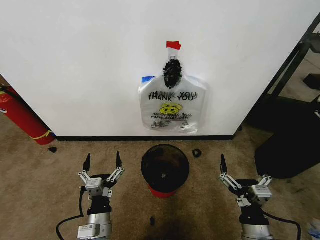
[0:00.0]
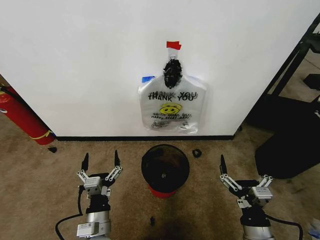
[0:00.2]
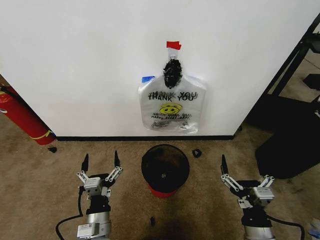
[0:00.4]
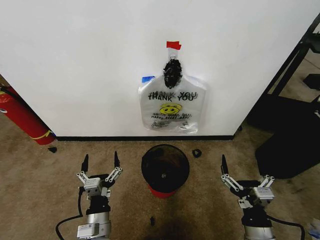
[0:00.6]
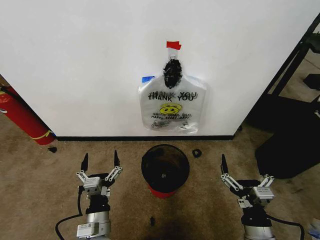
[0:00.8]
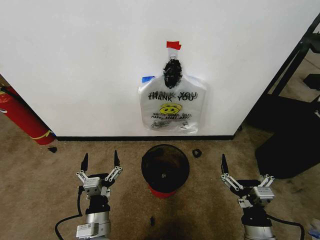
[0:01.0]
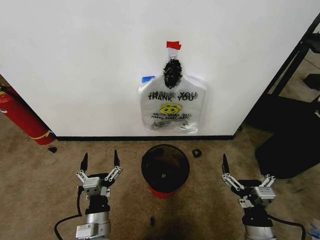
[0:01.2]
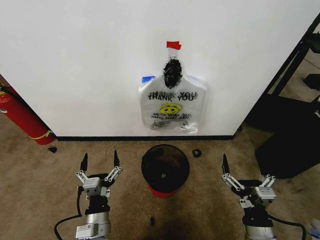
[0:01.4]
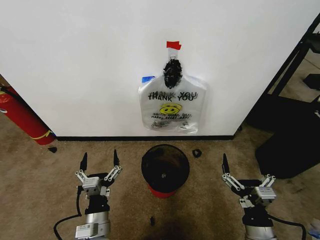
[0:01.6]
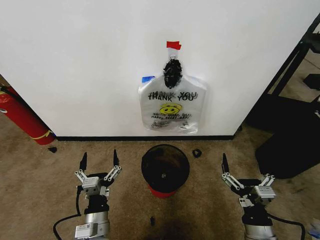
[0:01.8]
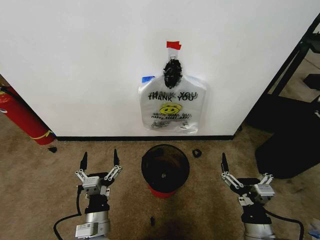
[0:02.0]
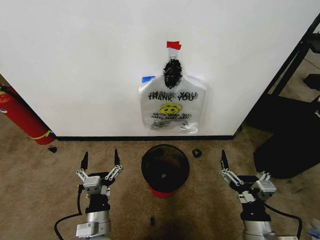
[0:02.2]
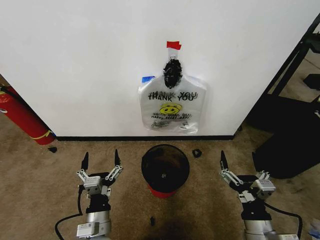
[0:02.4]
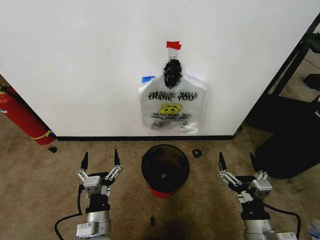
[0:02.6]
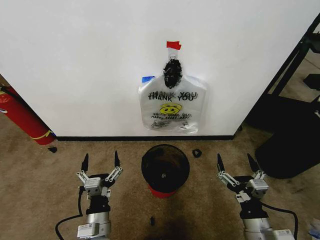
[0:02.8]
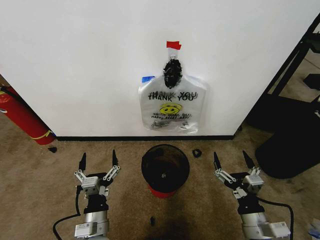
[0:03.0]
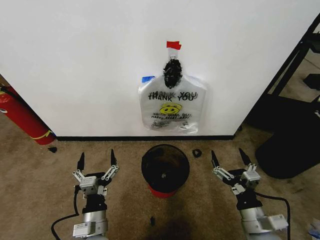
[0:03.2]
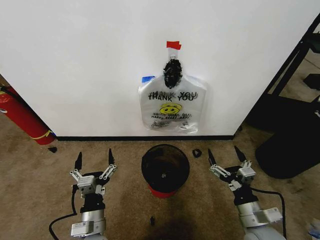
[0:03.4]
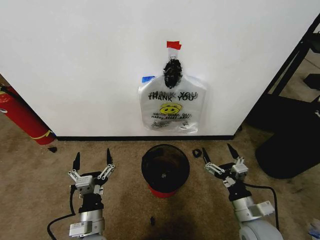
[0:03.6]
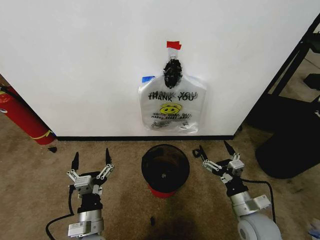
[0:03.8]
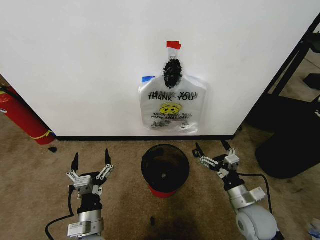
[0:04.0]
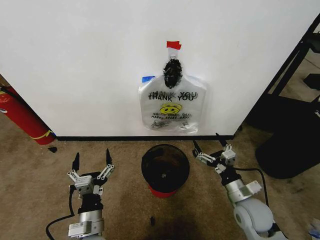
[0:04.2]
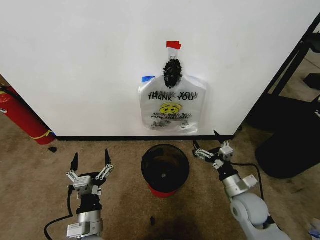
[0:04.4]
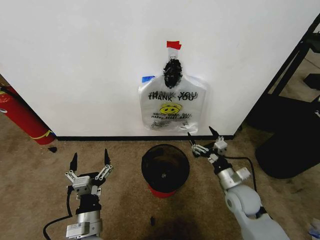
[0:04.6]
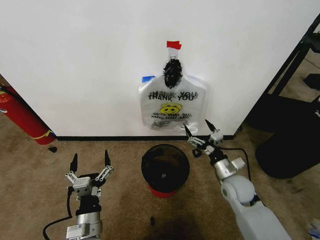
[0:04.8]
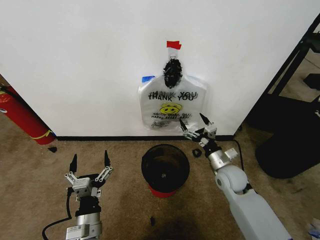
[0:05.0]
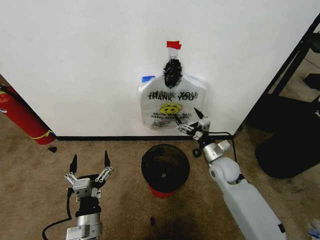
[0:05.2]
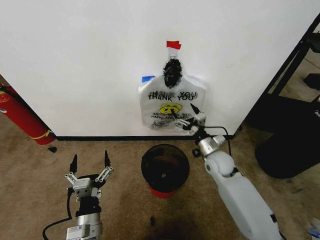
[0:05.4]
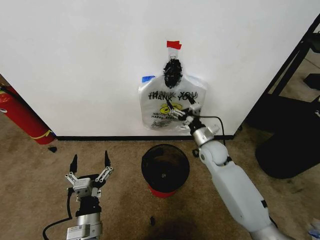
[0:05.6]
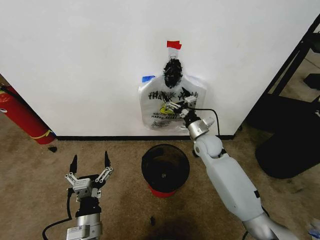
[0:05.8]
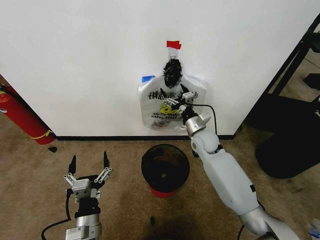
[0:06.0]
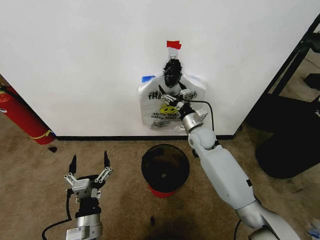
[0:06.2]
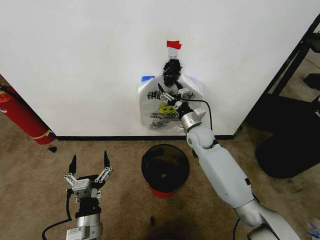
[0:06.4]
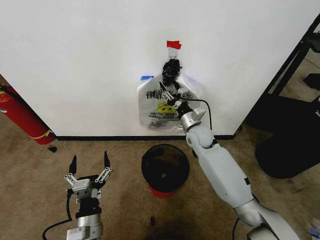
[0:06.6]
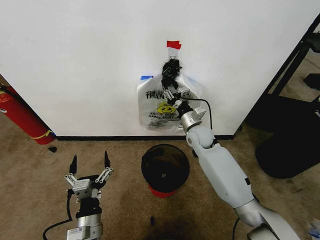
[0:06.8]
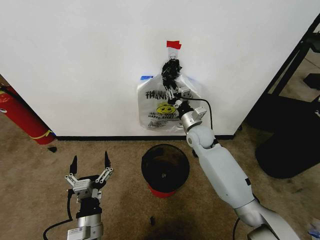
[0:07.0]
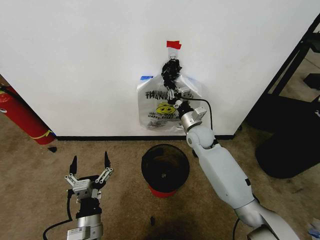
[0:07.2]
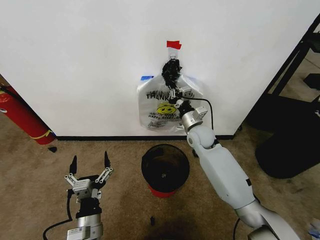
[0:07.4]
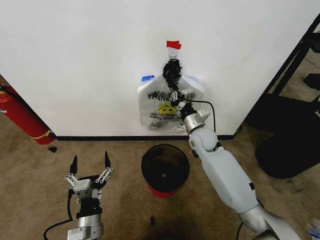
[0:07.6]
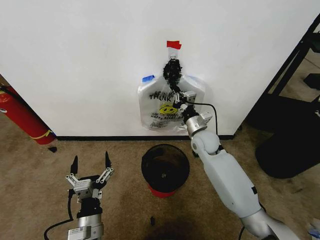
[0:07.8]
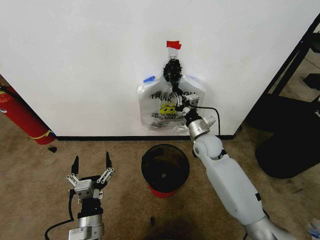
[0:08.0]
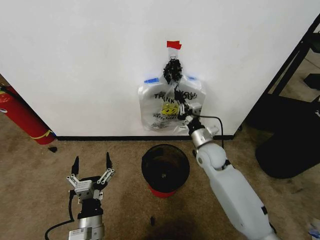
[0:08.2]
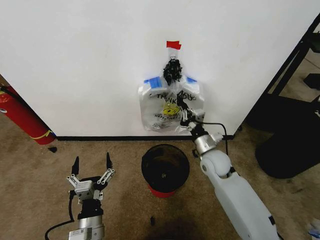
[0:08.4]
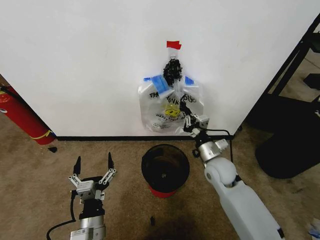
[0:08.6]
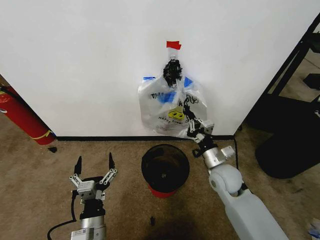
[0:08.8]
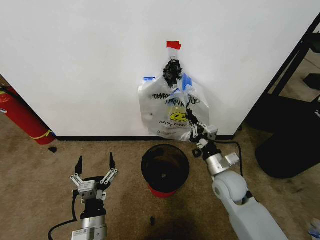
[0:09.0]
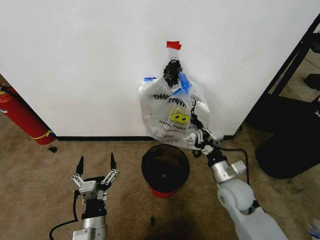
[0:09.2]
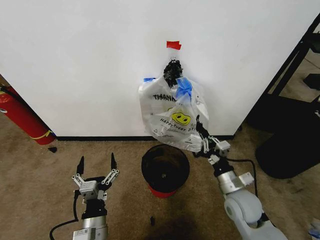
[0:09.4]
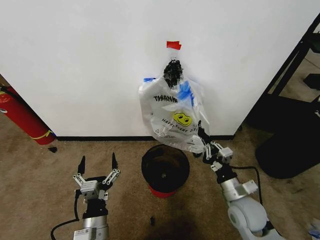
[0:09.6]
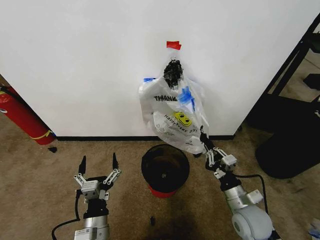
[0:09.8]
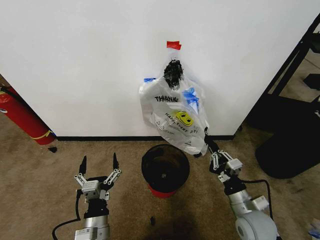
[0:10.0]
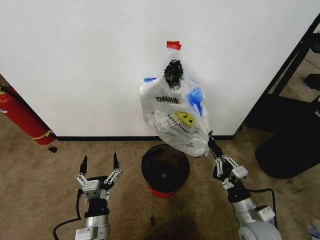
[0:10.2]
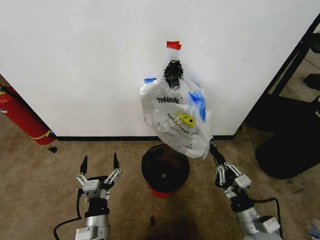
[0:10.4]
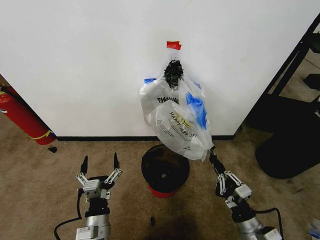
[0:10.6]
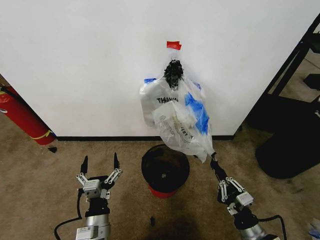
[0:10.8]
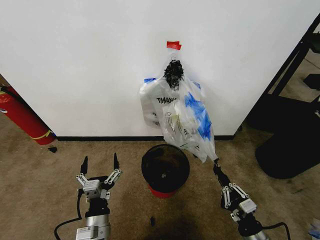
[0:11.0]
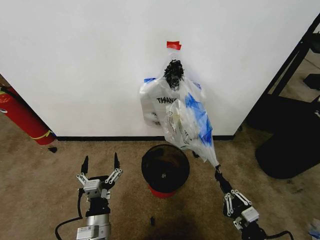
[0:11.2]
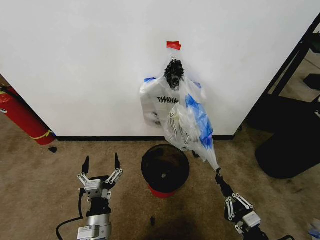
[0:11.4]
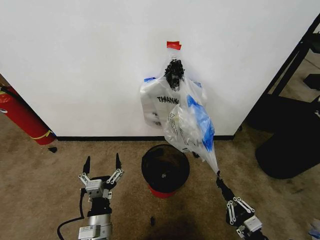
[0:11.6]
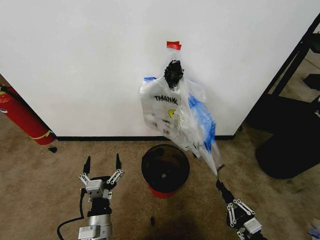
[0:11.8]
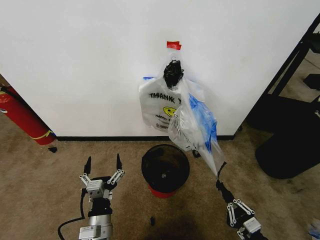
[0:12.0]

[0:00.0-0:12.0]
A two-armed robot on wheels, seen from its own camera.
Task of the whole recording: Pick up the garbage bag from the wall and place it over the trash bin.
0:01.6 to 0:03.0: There are only small adjustments of the grippers.
0:03.0 to 0:04.4: The right gripper goes roughly 15 cm forward.
0:04.4 to 0:06.0: The right gripper shifts roughly 25 cm forward and to the left.
0:06.0 to 0:07.6: The right gripper closes its fingers.
0:07.6 to 0:09.0: The right gripper shifts roughly 15 cm backward.
0:09.0 to 0:10.4: The right gripper shifts some 15 cm backward and to the right.
0:10.4 to 0:12.0: The right gripper moves backward and downward, some 10 cm.

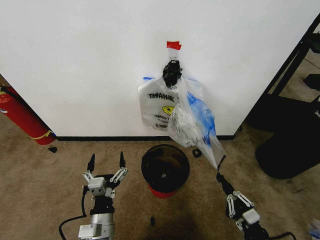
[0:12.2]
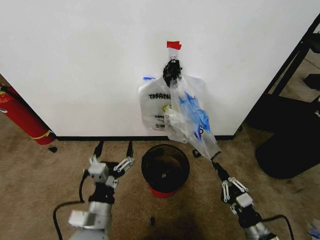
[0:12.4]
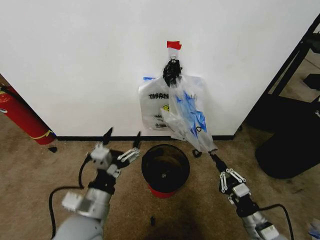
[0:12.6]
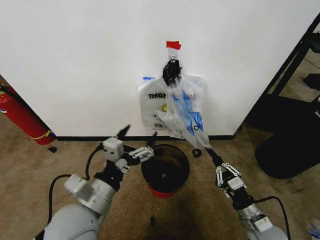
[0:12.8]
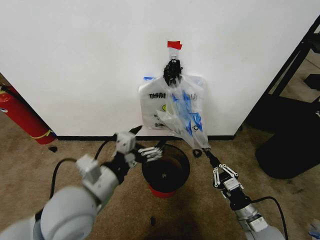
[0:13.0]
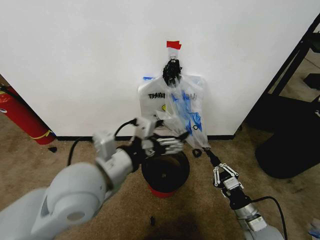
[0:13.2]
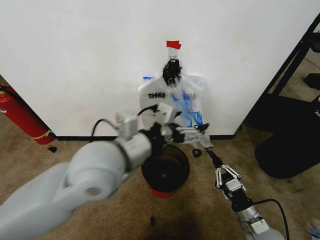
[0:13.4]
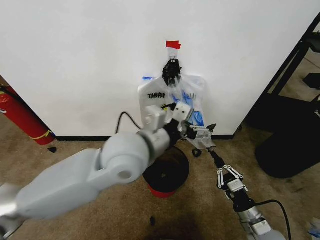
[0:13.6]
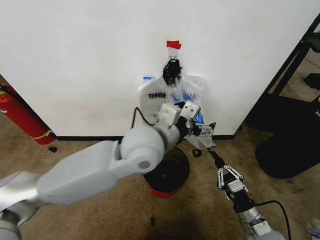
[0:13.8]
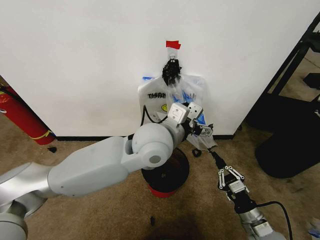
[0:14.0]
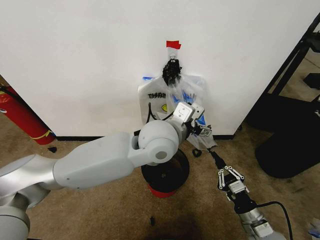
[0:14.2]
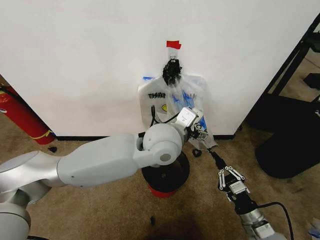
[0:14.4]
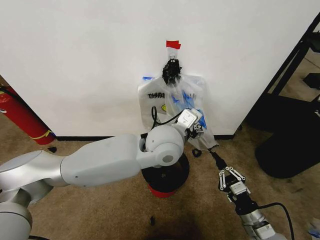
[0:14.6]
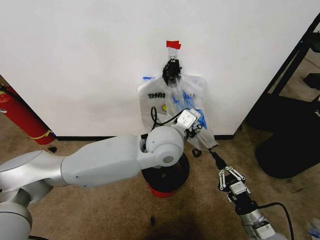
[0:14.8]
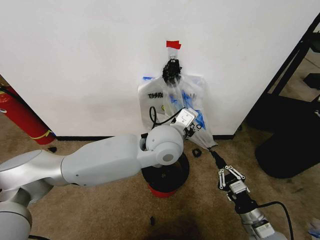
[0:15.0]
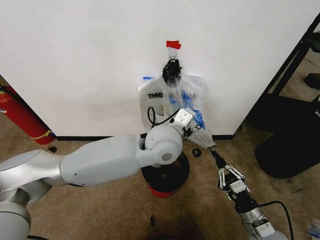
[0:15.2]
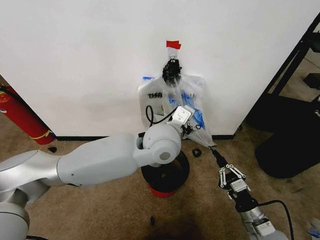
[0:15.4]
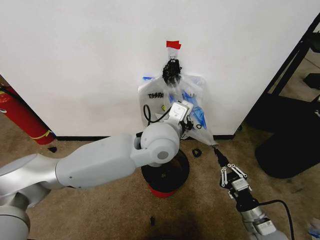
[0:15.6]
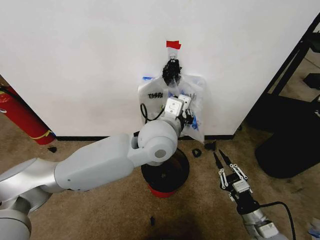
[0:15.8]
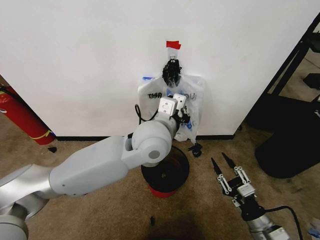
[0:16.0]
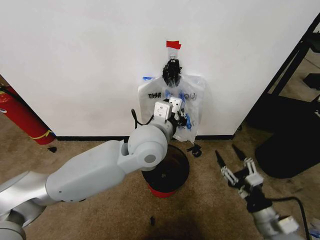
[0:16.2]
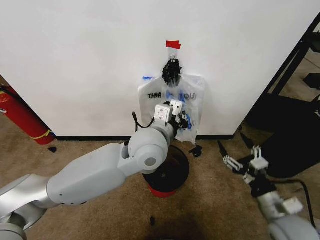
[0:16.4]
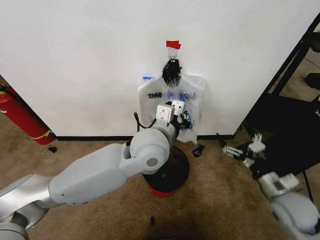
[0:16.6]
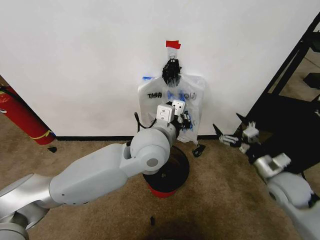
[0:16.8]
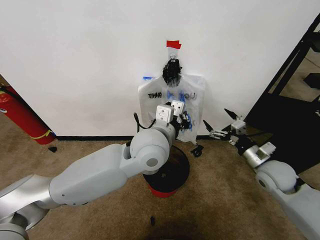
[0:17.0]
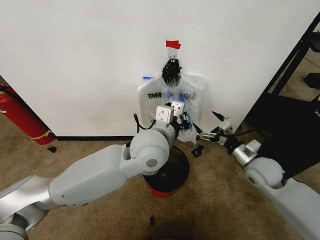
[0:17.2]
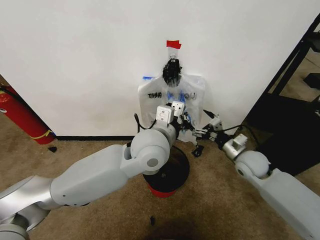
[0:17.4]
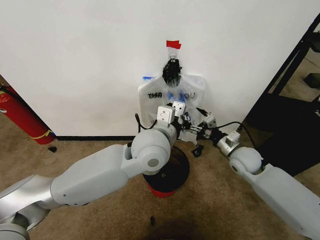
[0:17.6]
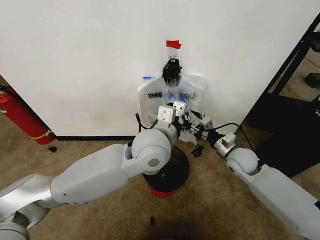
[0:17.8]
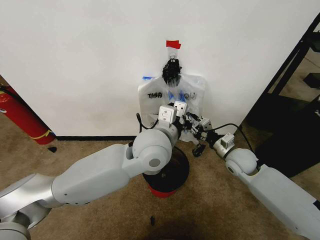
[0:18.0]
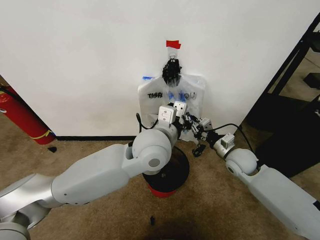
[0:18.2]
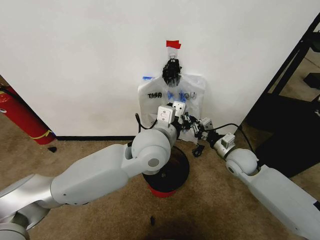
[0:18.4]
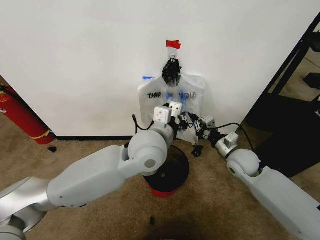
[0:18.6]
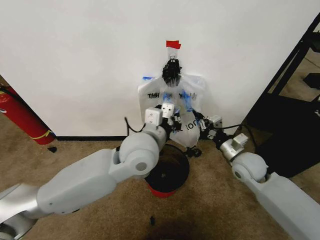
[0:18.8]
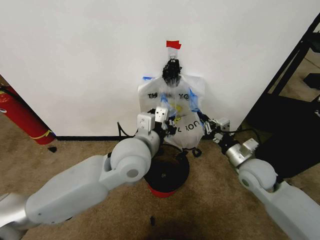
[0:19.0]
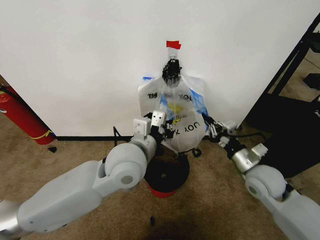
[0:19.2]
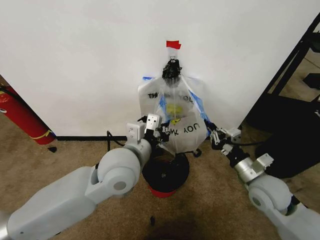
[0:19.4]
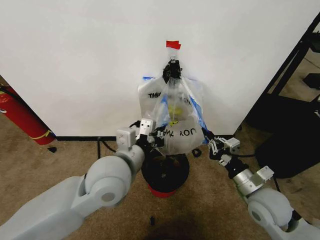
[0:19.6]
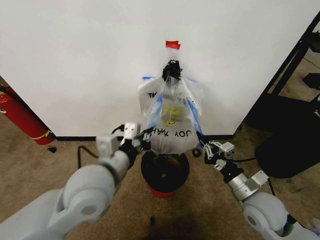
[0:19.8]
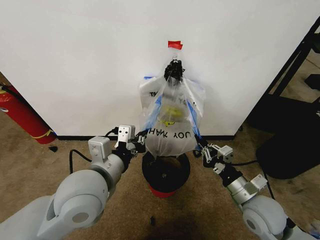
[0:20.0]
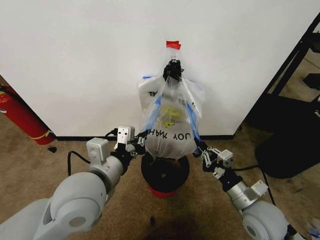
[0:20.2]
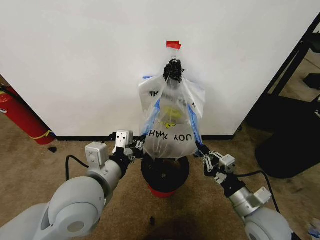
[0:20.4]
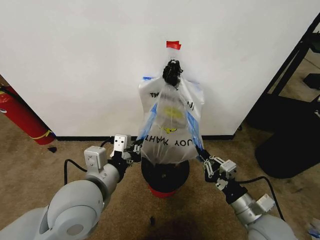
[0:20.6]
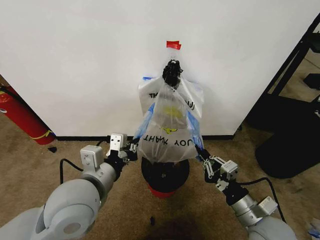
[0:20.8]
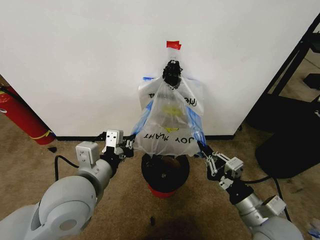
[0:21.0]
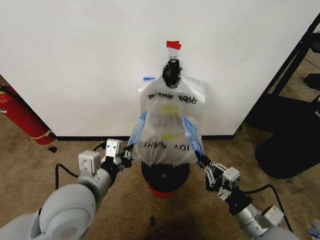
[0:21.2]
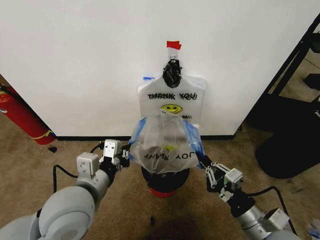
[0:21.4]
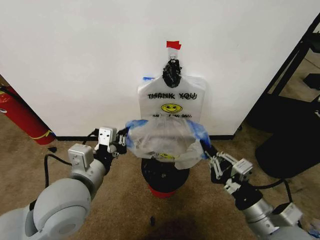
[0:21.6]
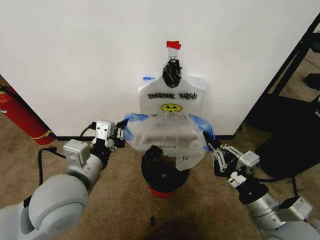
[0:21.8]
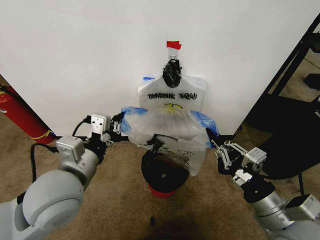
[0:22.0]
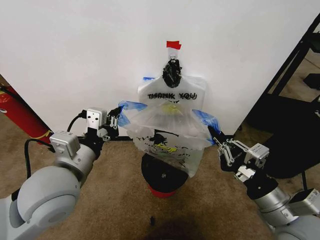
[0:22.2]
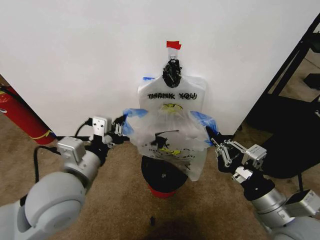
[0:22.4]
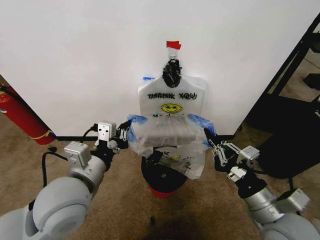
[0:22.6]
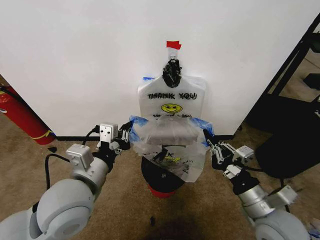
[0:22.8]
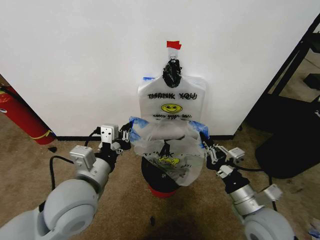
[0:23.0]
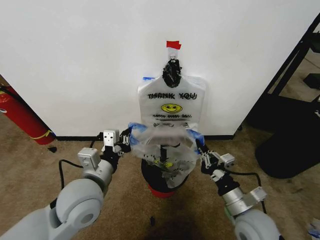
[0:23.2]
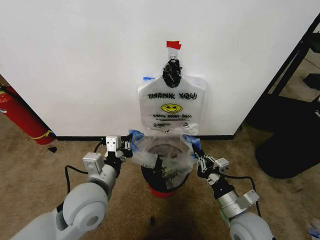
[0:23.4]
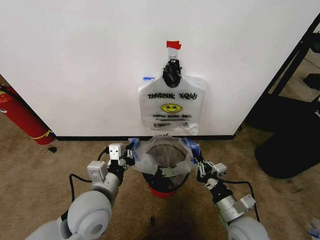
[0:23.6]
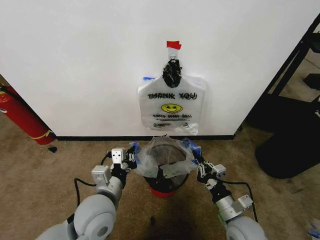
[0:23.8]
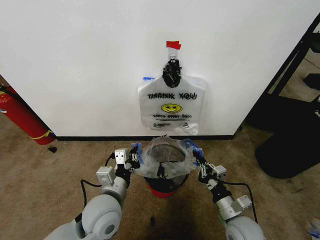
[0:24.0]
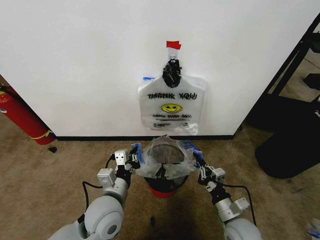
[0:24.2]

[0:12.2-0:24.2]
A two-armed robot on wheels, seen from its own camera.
Task of the whole recording: Pick up the garbage bag from the wall and place it over the trash bin.
0:12.2 to 0:13.8: The right gripper shifts roughly 5 cm forward, while the left gripper heads upward, forward and to the right, covering some 30 cm.
0:13.8 to 0:15.2: The left gripper is displaced to the right by about 5 cm, and closes.
0:15.2 to 0:16.6: The right gripper goes roughly 10 cm upward, forward and to the right, and opens its fingers.
0:16.6 to 0:18.2: The right gripper shifts roughly 20 cm forward and to the left, and closes its fingers.
0:18.2 to 0:19.8: The left gripper heads to the left and backward, covering about 15 cm; the right gripper heads backward, covering approximately 15 cm.
0:19.8 to 0:21.2: The left gripper changes place by roughly 5 cm. The right gripper heads backward, covering approximately 10 cm.
0:21.2 to 0:22.6: The right gripper heads upward, covering approximately 5 cm.
0:22.6 to 0:24.2: Both grippers travel together downward, some 15 cm.
